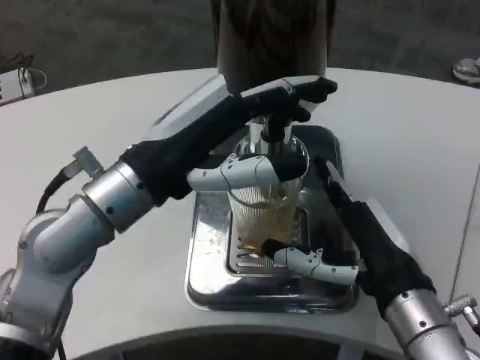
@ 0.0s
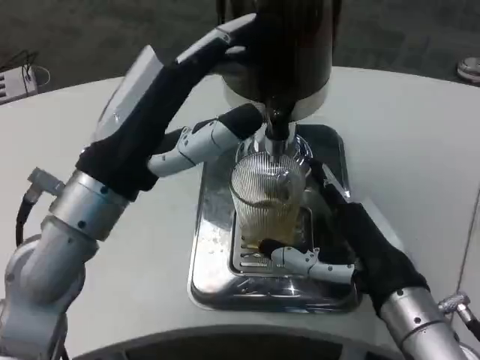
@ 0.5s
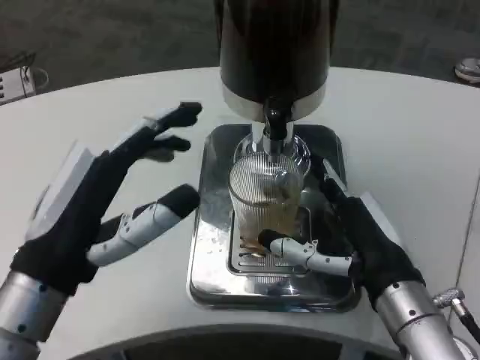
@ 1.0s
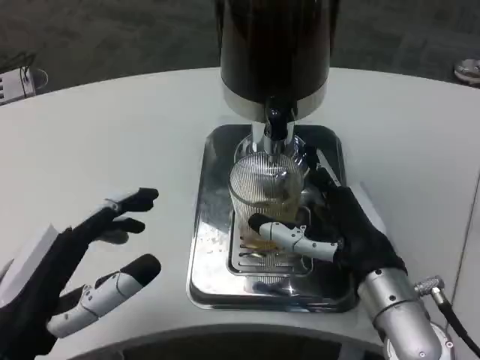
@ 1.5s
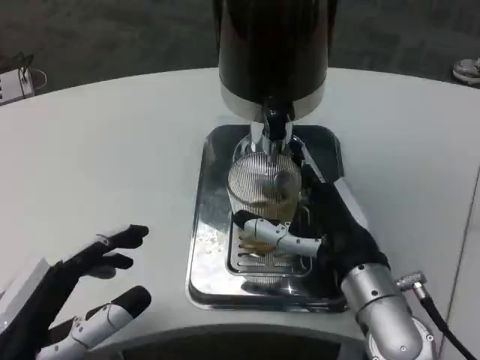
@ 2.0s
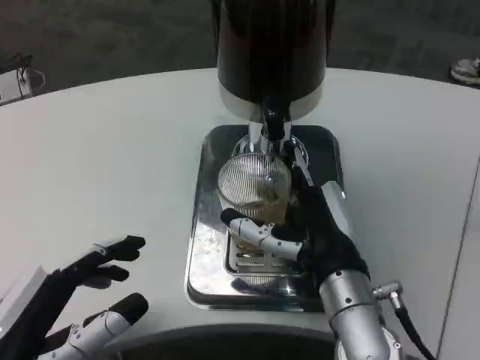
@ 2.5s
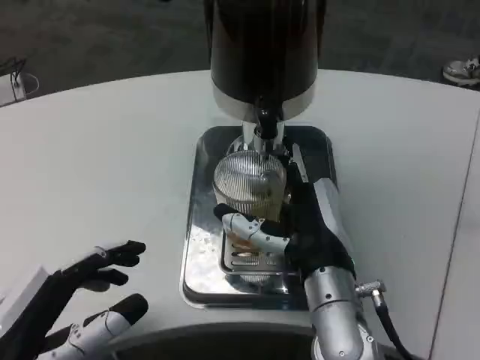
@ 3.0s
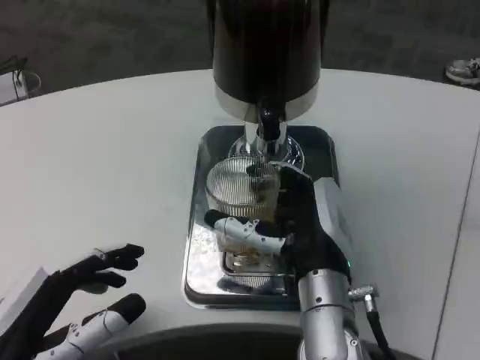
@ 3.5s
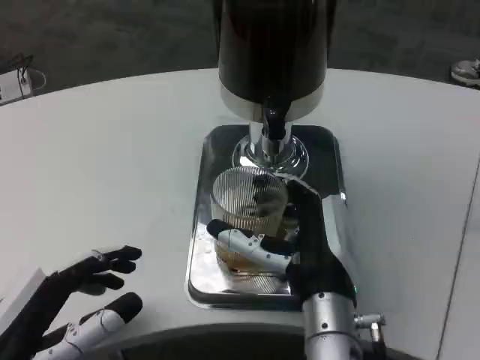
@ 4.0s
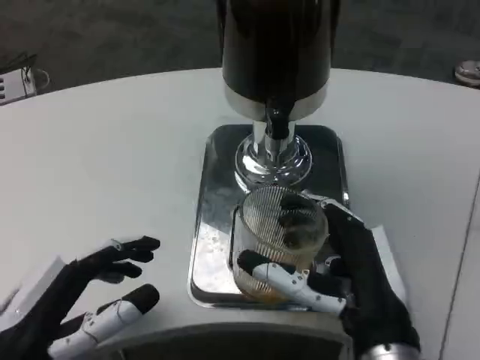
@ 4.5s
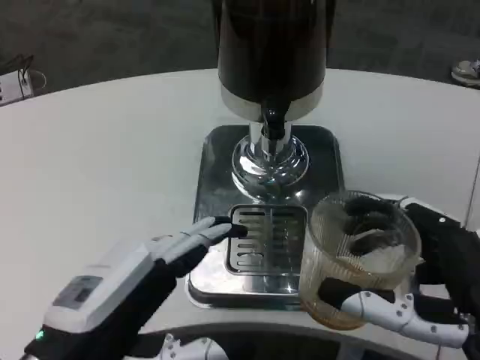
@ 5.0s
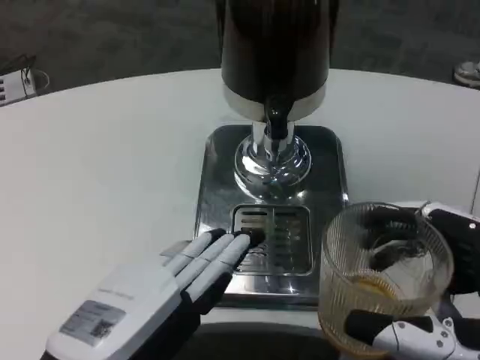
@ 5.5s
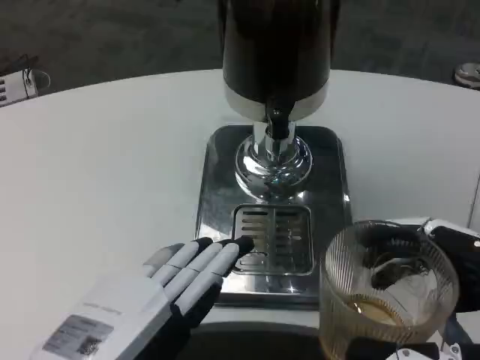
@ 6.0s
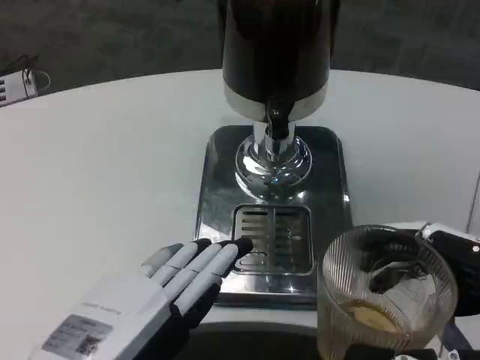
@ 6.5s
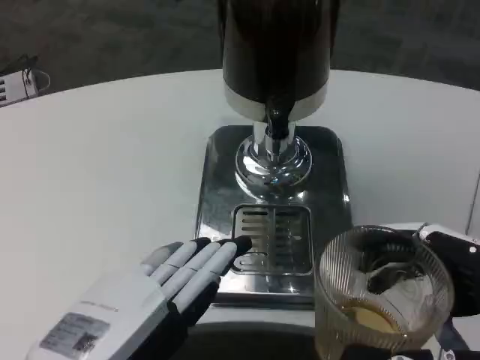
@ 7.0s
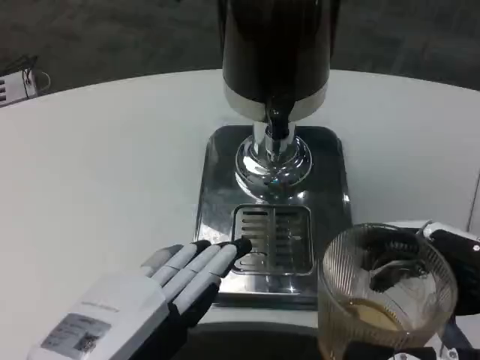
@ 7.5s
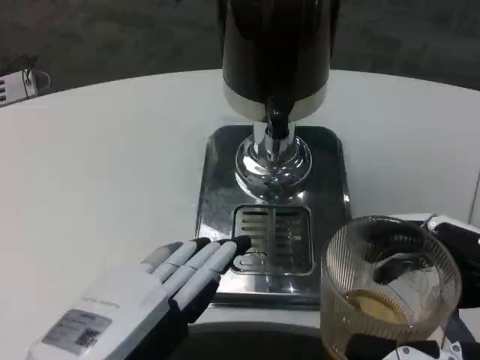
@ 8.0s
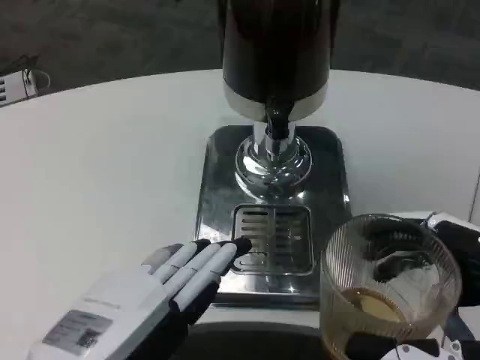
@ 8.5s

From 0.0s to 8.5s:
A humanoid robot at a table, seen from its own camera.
Task of the whole recording: Grasp the cup under the faucet to collect the drink, then remove the cup.
From 0.0s to 2.0s: The left hand travels backward, downward and to the left by roughly 20 cm.
From 2.0s to 4.0s: The right hand moves to the left, approximately 5 cm.
From 4.0s to 6.5s: The left hand travels to the right, backward and upward by approximately 10 cm. The right hand goes about 20 cm backward and to the right.
From 6.5s to 8.5s: Both hands stay about where they are.

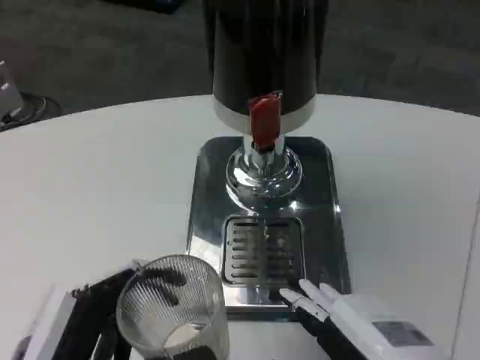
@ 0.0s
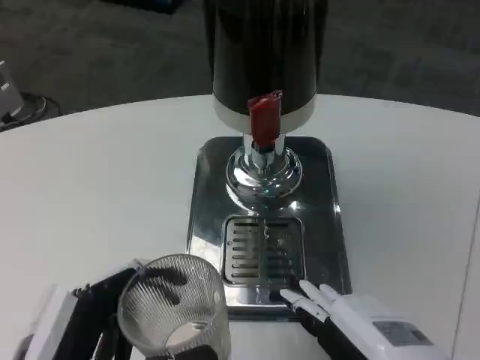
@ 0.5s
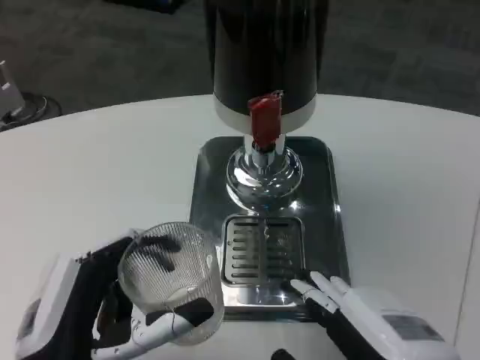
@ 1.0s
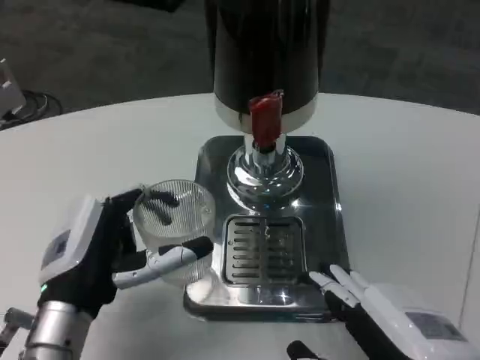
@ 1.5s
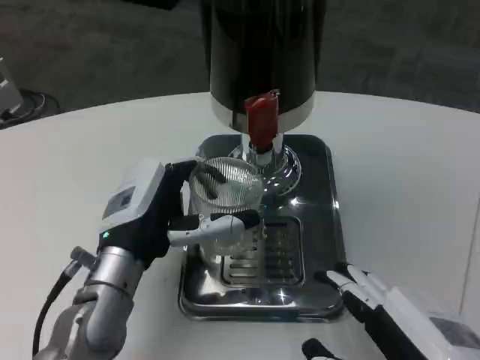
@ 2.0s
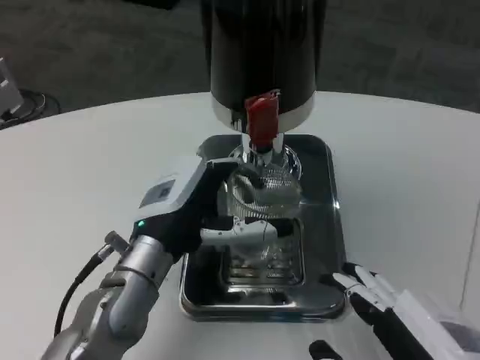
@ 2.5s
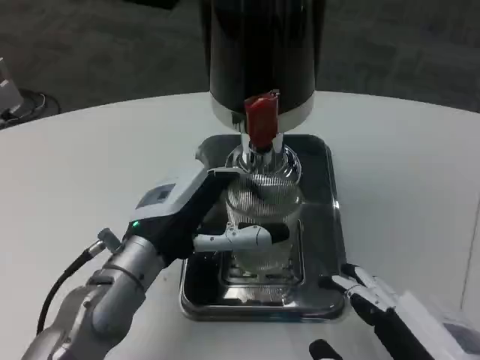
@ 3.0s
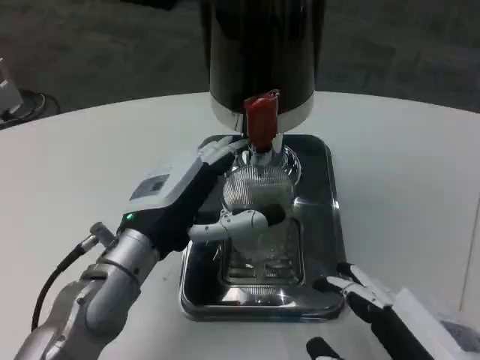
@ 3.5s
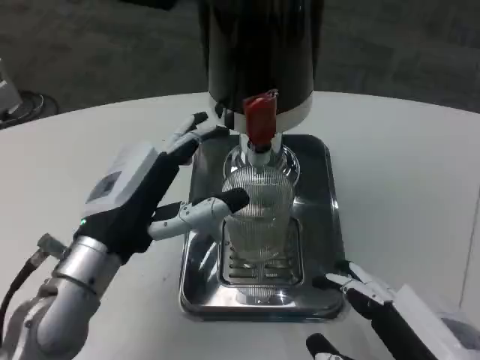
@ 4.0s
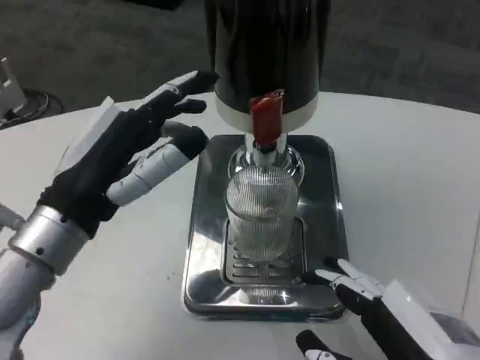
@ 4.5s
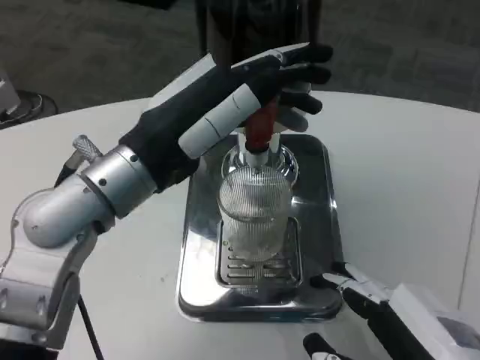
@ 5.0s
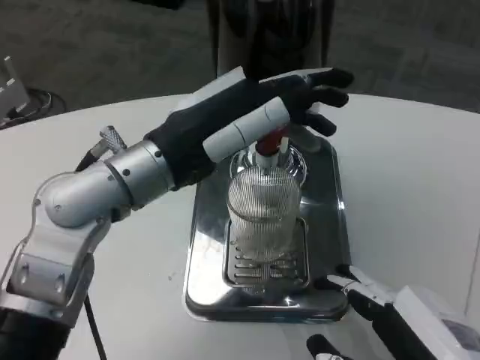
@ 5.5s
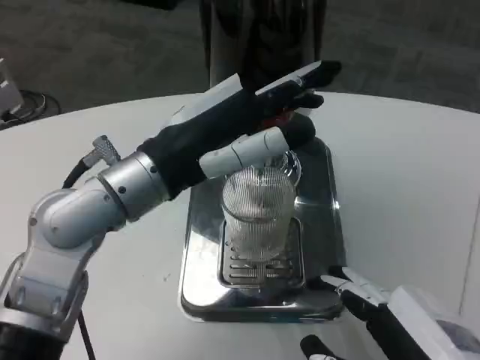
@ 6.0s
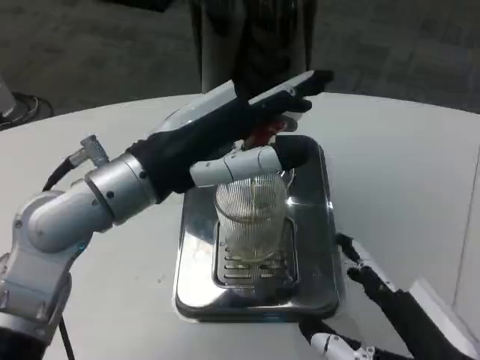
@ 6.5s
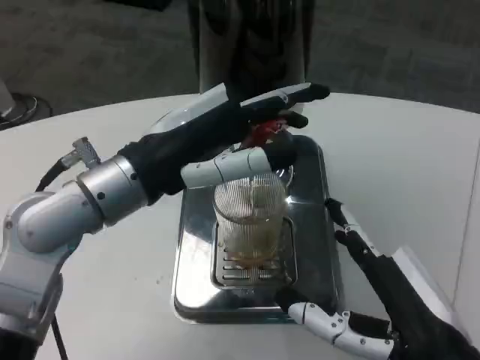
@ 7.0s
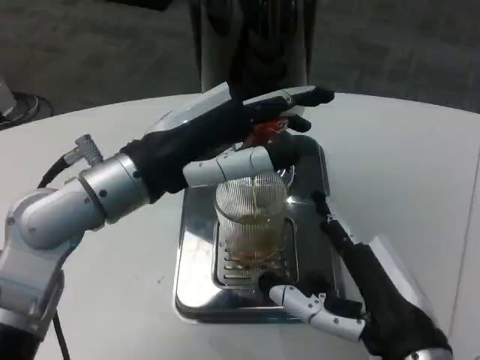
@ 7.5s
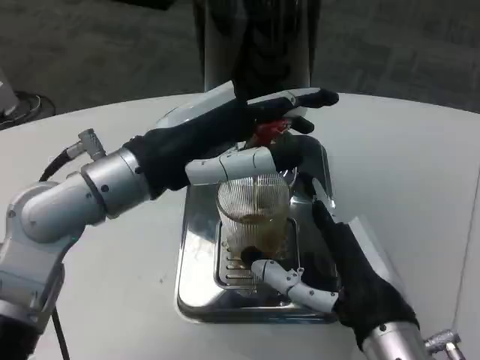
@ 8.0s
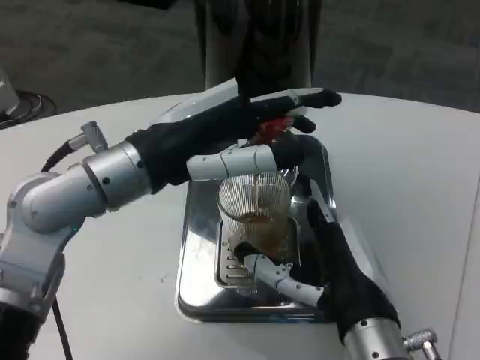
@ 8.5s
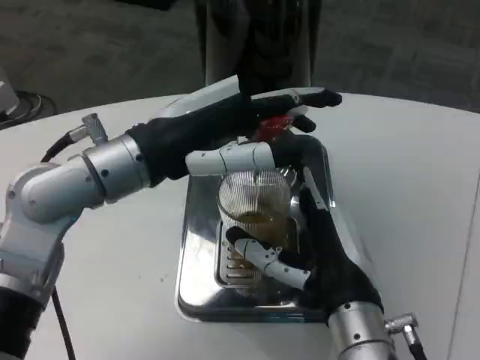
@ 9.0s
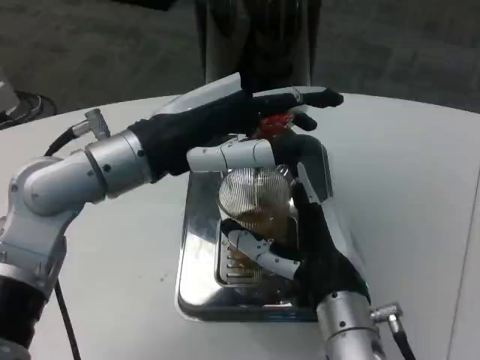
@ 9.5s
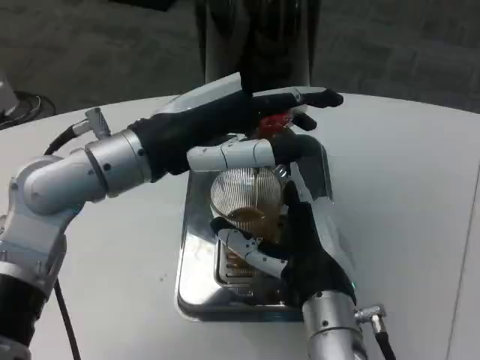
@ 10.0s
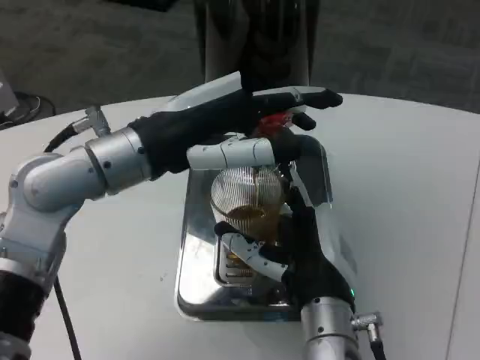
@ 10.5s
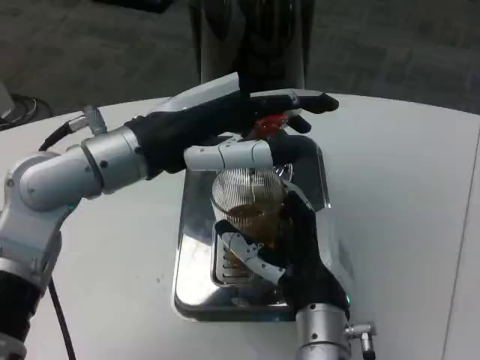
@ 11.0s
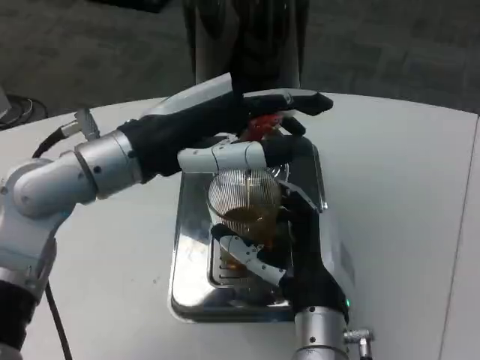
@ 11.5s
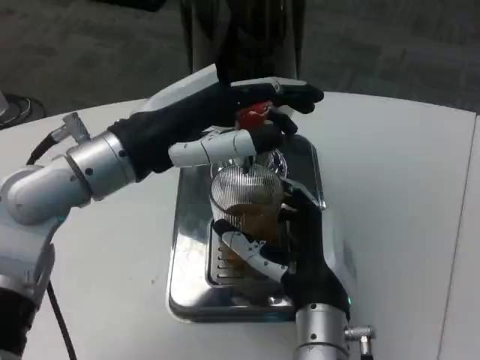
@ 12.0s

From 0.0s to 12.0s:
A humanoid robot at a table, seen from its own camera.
Task of the whole recording: Grasp the cup under the faucet to collect the drink, then remove the cup.
From 0.0s to 2.0s: The left hand is displaced forward by roughly 15 cm.
From 4.0s to 6.0s: The left hand shifts about 10 cm upward.
From 6.0s to 8.0s: The right hand shifts approximately 10 cm forward and to the left.
From 8.0s to 10.0s: The right hand heads to the left, covering approximately 5 cm.

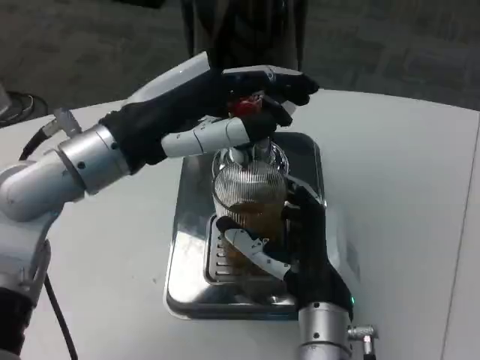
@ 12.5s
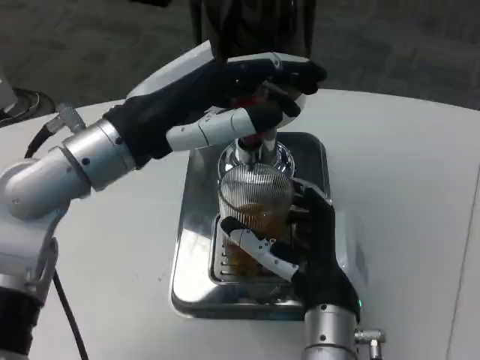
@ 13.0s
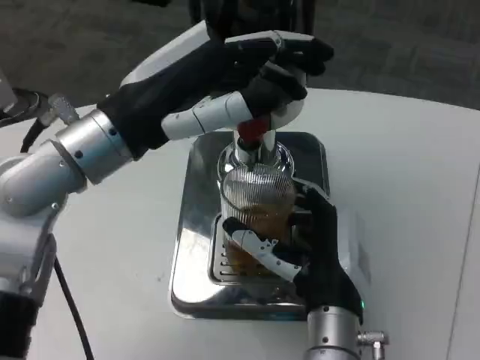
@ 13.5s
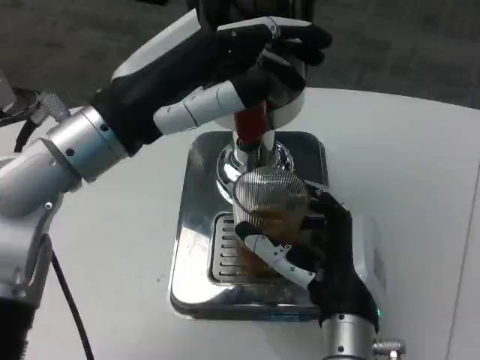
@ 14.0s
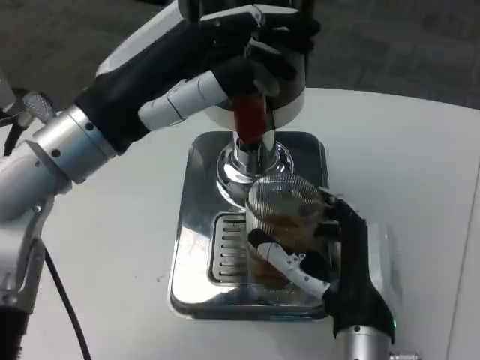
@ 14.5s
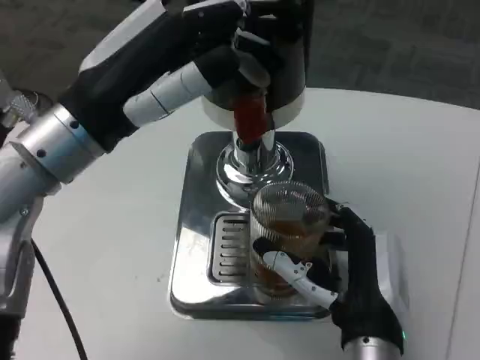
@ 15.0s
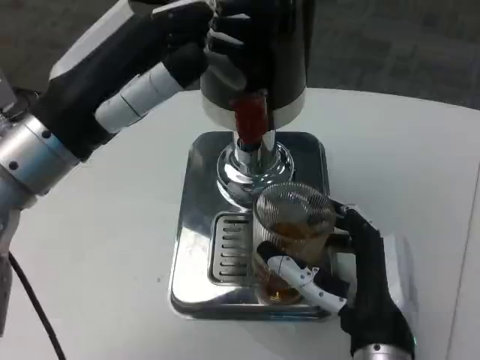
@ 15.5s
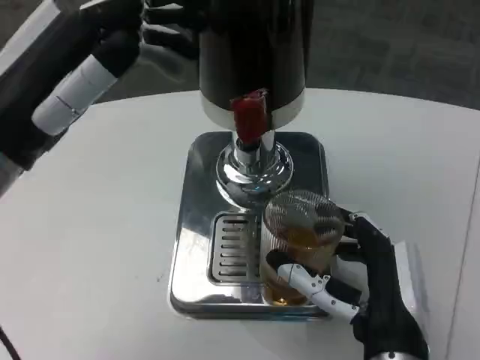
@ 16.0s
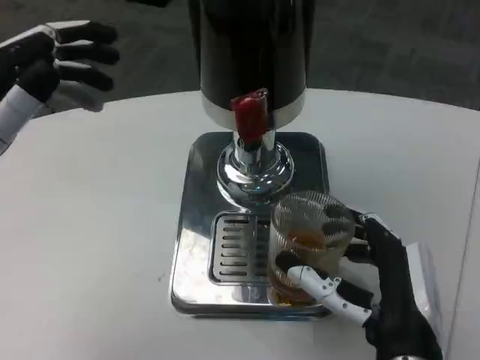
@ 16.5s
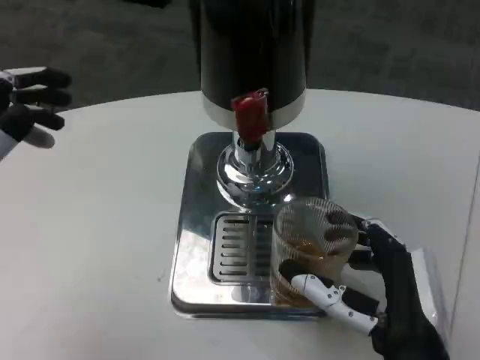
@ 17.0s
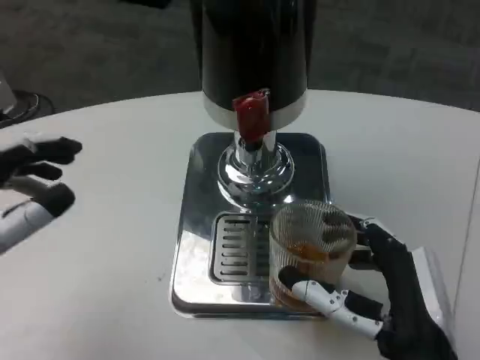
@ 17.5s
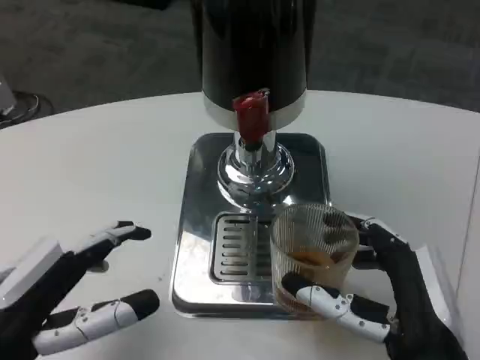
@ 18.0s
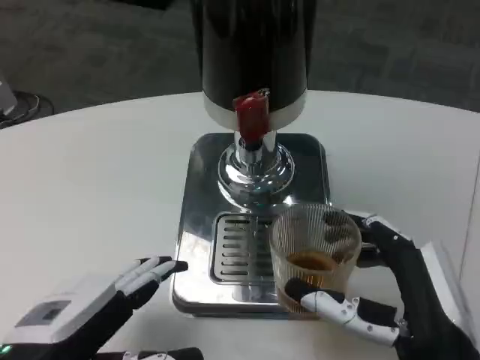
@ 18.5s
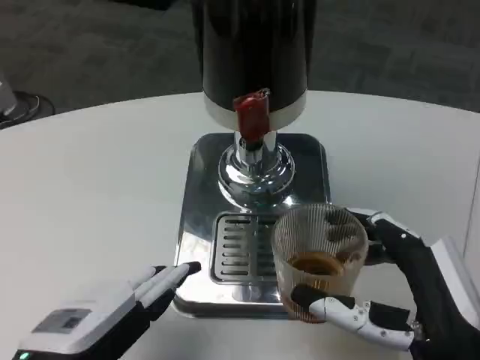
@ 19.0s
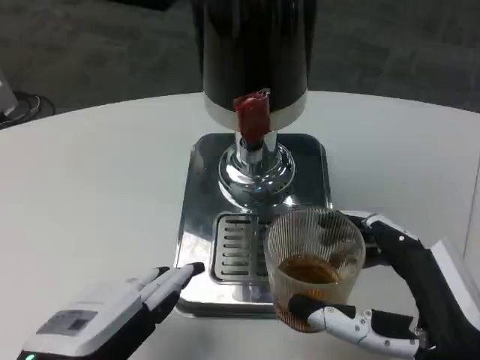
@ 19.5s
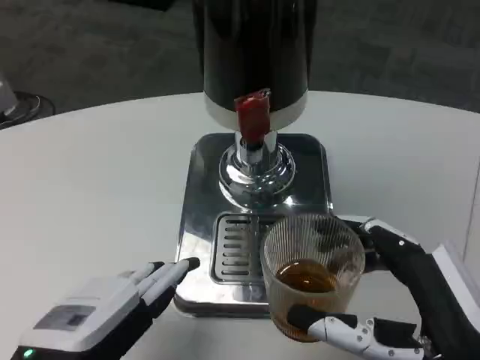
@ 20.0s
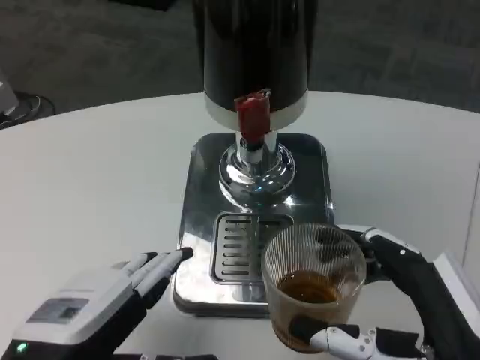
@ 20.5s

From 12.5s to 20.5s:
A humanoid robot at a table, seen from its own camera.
Task of the whole recording: Grasp the cup under the faucet to collect the drink, then remove the cup.
From 14.5s to 16.5s: The right hand changes place by approximately 5 cm. The left hand moves to the left and backward, some 10 cm.
From 16.5s to 18.5s: The left hand travels downward and backward by roughly 10 cm.
From 18.5s to 20.5s: The hands make only small movements.
